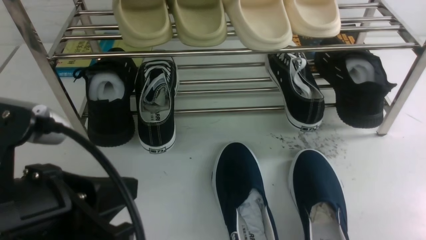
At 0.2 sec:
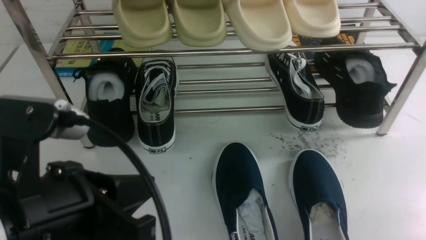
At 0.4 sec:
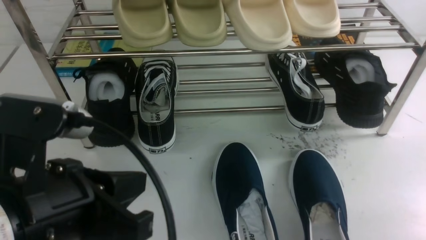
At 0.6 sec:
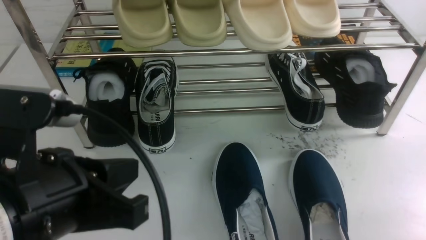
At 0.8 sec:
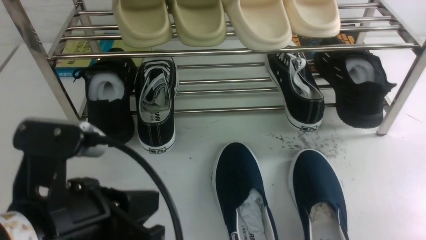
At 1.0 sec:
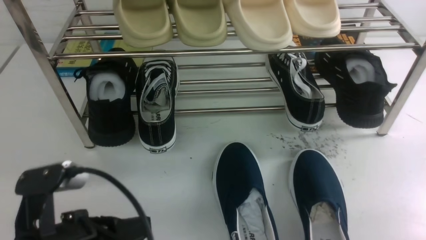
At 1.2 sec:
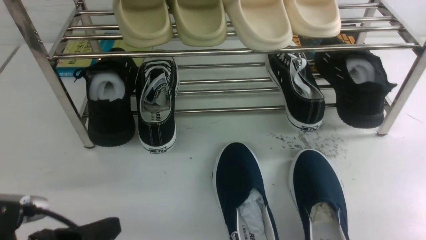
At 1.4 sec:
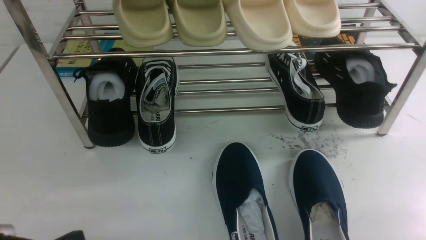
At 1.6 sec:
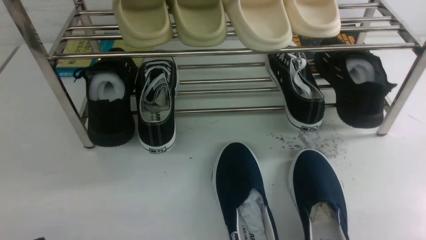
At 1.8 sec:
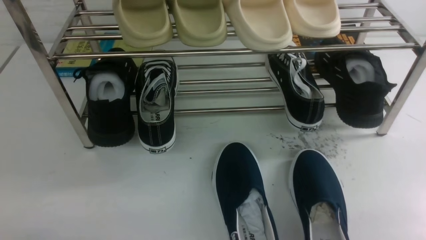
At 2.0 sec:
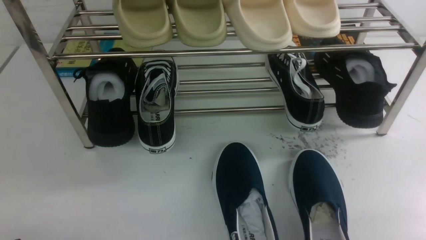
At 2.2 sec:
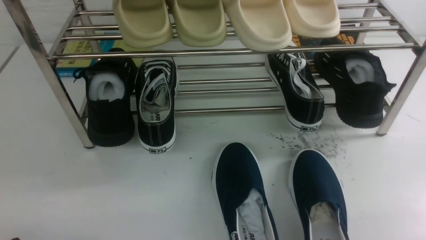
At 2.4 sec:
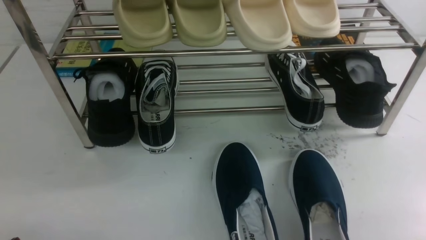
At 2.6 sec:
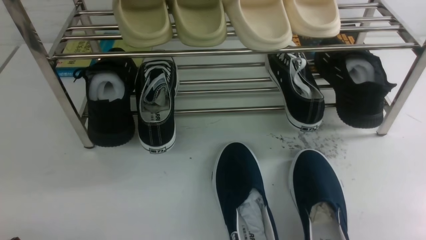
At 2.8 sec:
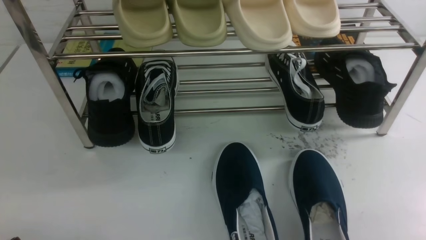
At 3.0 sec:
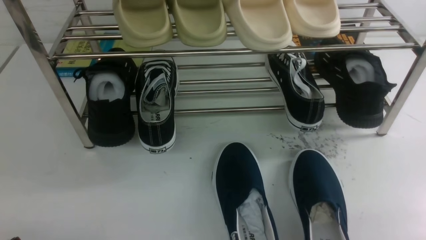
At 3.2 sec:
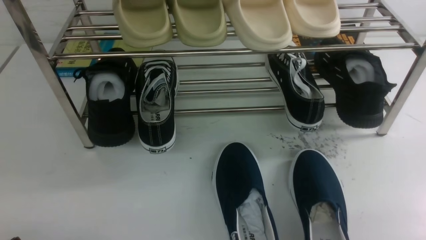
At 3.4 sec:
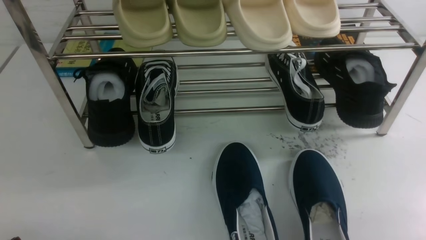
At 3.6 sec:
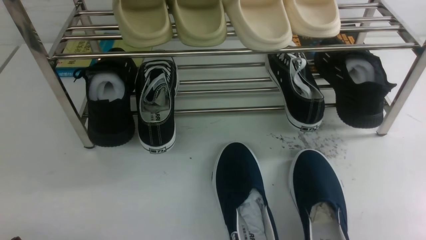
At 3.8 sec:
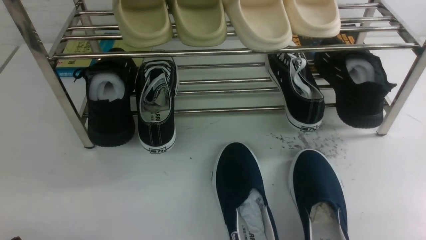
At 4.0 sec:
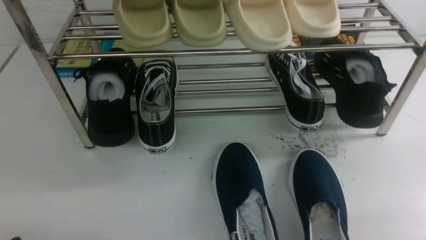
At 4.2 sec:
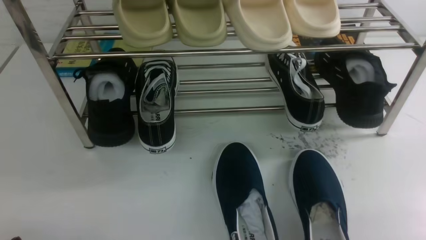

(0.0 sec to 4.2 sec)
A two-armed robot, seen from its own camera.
0.0 sec - 1.4 sec: The left gripper shifts some 15 cm downward and to the left.
2.8 sec - 4.2 sec: Both grippers stay about where they are.
